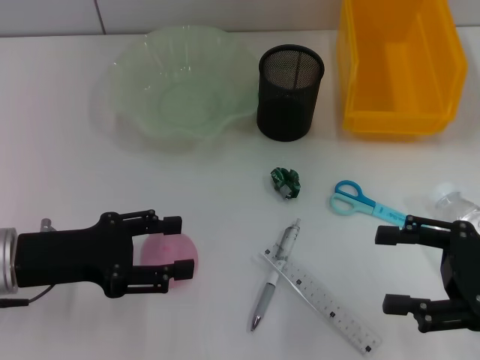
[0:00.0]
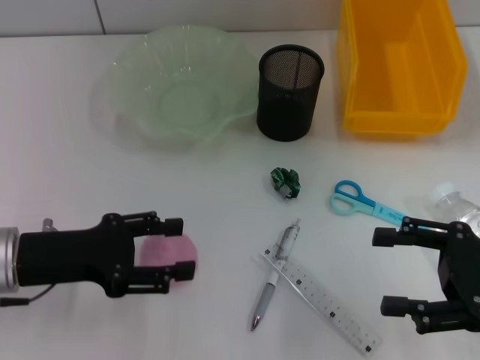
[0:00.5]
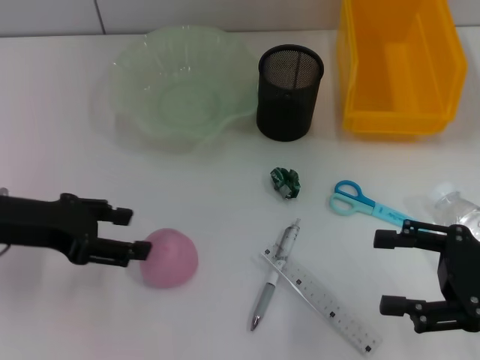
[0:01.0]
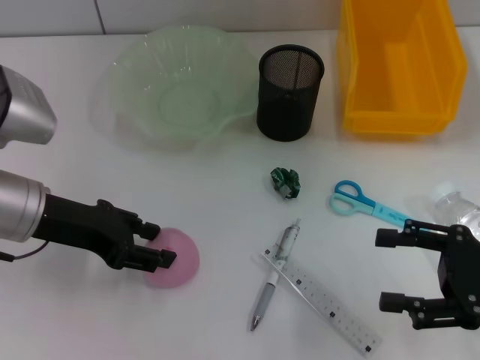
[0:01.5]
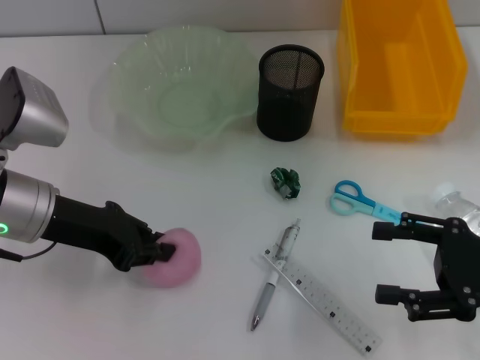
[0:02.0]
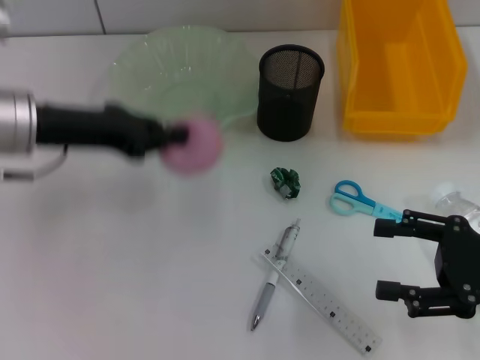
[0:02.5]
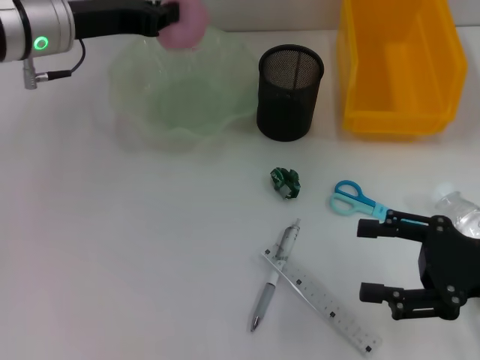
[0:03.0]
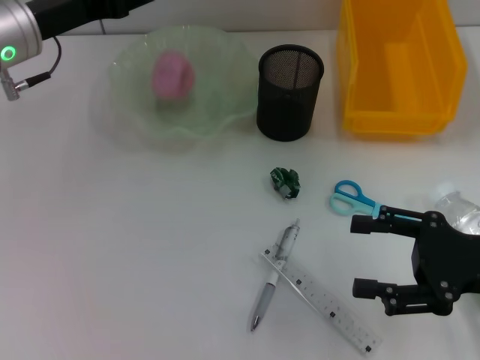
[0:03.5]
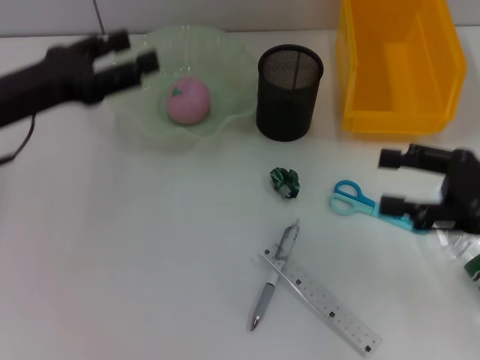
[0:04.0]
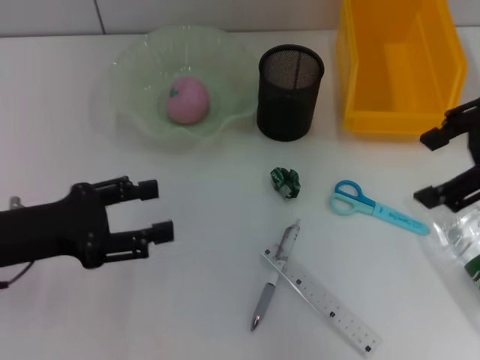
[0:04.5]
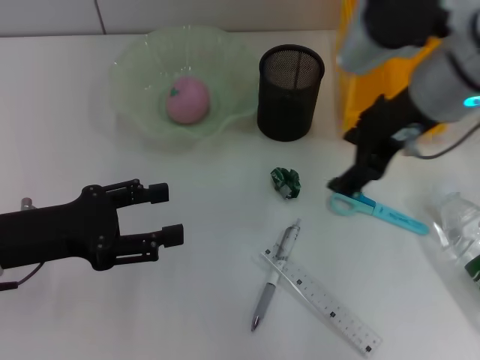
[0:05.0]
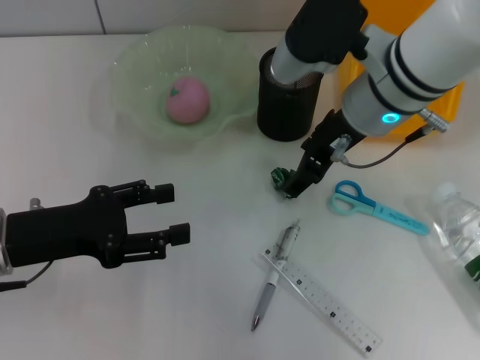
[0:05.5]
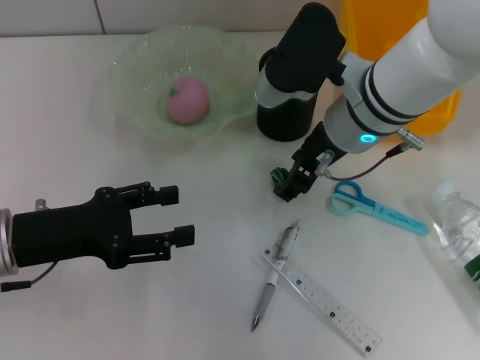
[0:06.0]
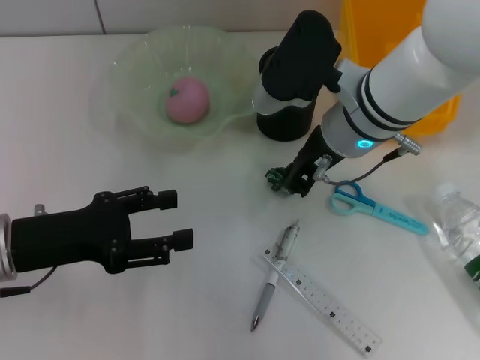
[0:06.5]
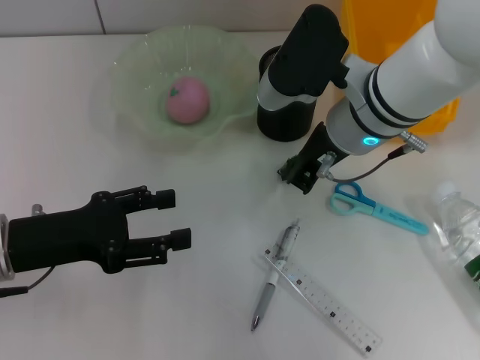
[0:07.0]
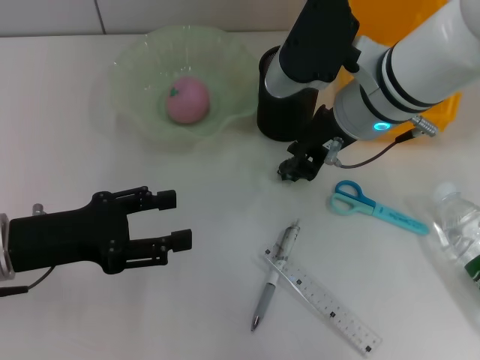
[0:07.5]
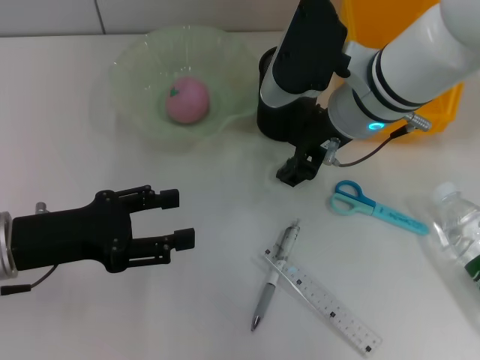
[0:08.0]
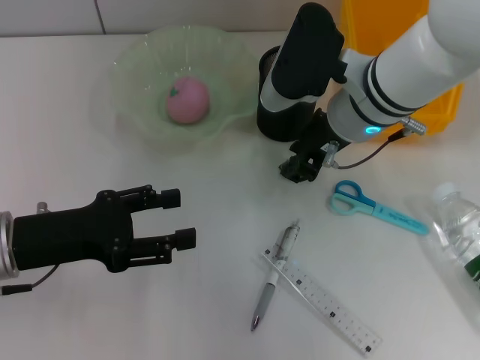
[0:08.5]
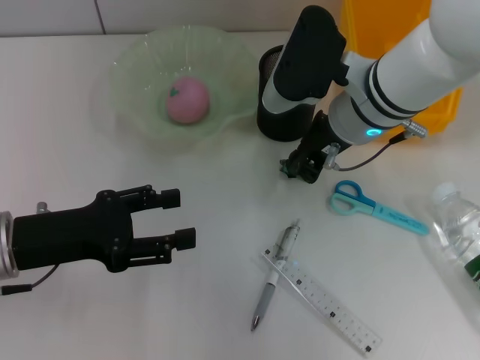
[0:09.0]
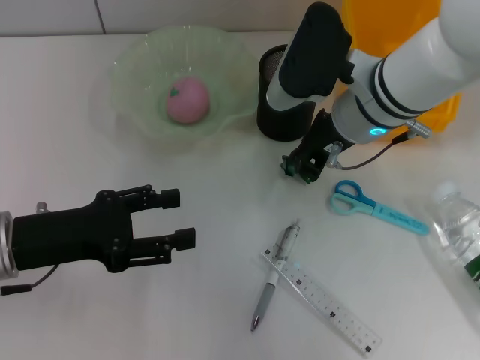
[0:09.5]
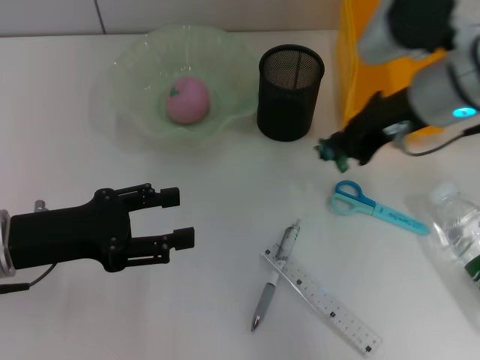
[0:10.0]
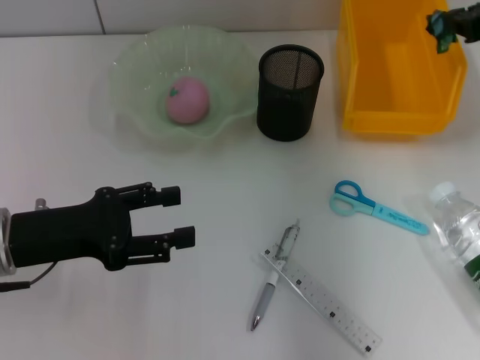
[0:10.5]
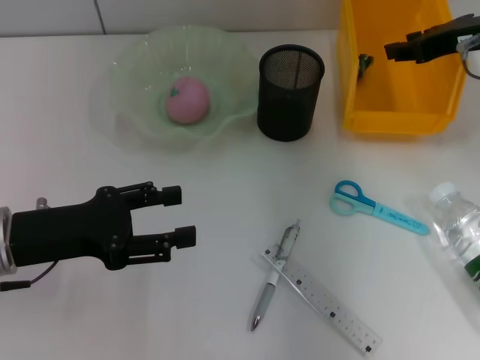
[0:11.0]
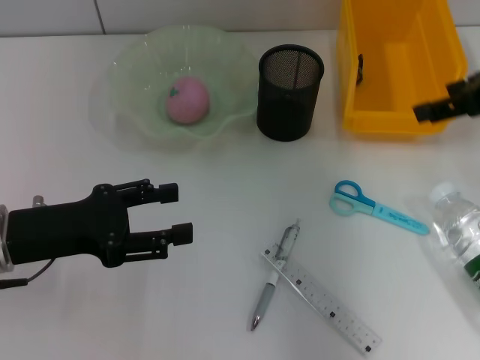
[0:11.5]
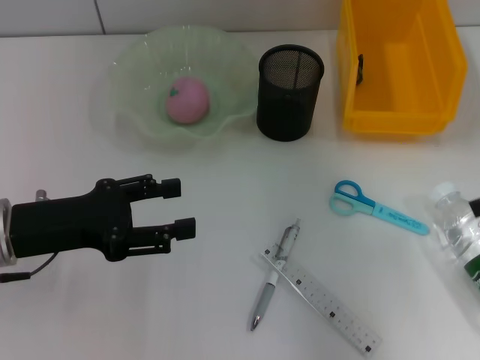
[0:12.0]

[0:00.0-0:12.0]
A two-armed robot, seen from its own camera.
Step, 0:00.0 to 0:02.0: Grab the peach with the left hand.
Step, 0:02.5 to 0:03.5: Place the peach into the fruit bowl with the left hand.
Step, 0:04.0 to 0:09.5: Grab the plastic with the right hand.
Step, 0:10.0 to 0:10.5: Place the plastic into the trash can with the right hand.
0:00.0 to 0:02.0: The left gripper travels forward by roughly 5 cm, and closes up.
0:02.0 to 0:04.0: The right gripper moves roughly 5 cm, while the left gripper moves about 10 cm forward and comes back, and opens up.
0:04.0 to 0:06.0: The left gripper travels backward and downward by roughly 10 cm. The right gripper is displaced to the left and forward by about 25 cm.
0:06.0 to 0:08.0: The right gripper closes, then opens again.
0:08.0 to 0:10.0: The right gripper shifts some 10 cm to the right, and closes its fingers.
0:10.0 to 0:12.0: The right gripper heads to the right and backward, covering roughly 15 cm, and opens its fingers.

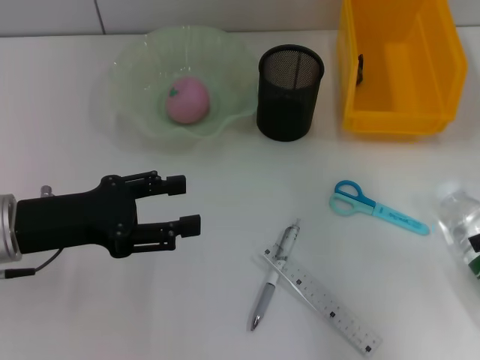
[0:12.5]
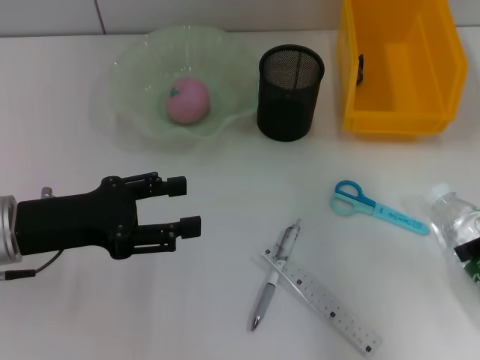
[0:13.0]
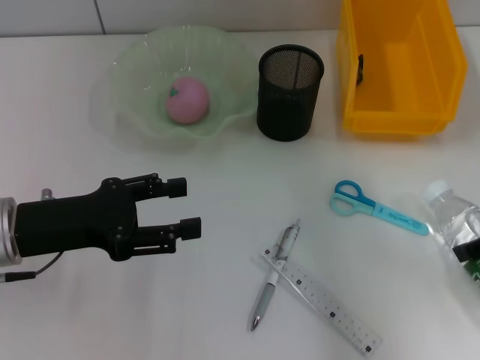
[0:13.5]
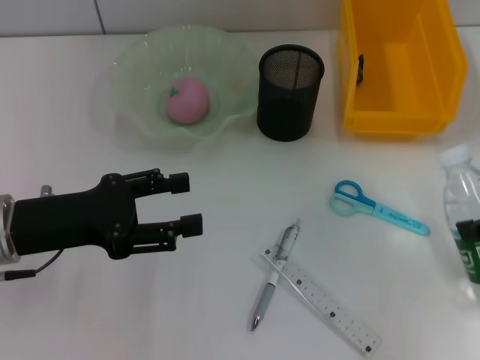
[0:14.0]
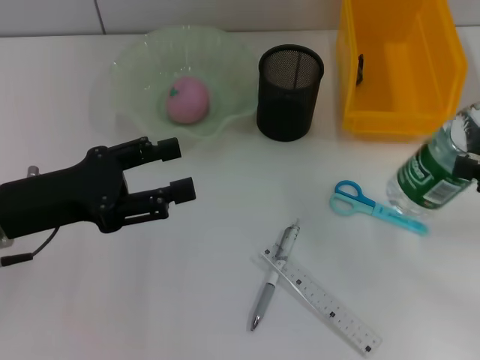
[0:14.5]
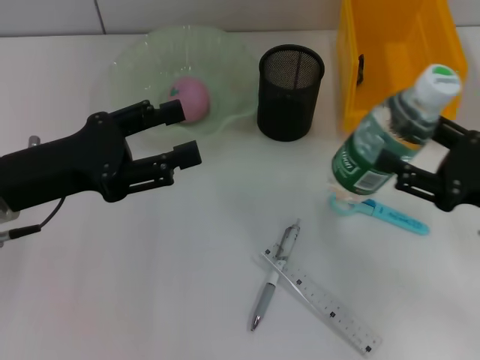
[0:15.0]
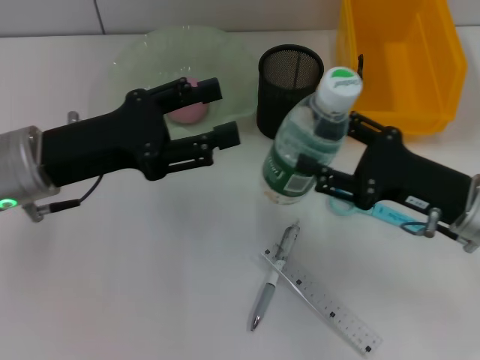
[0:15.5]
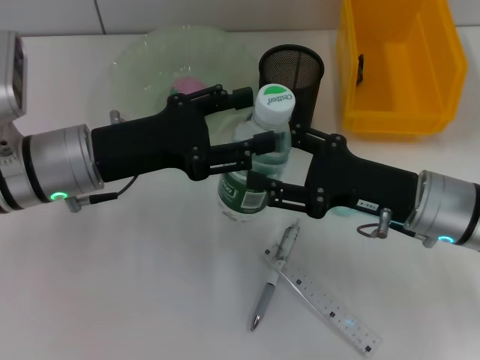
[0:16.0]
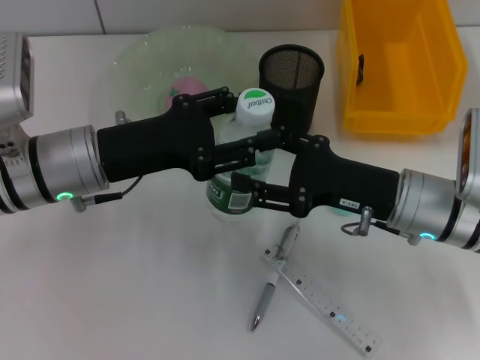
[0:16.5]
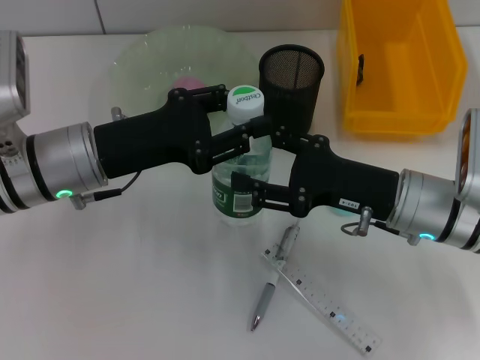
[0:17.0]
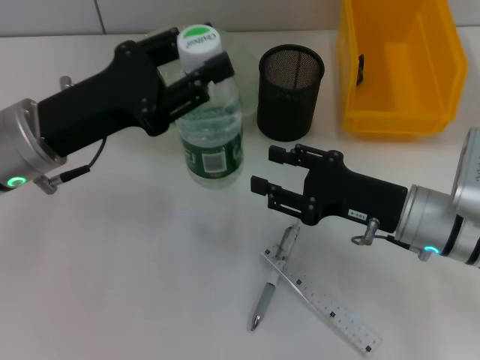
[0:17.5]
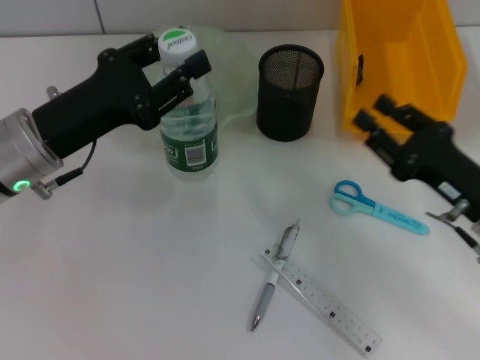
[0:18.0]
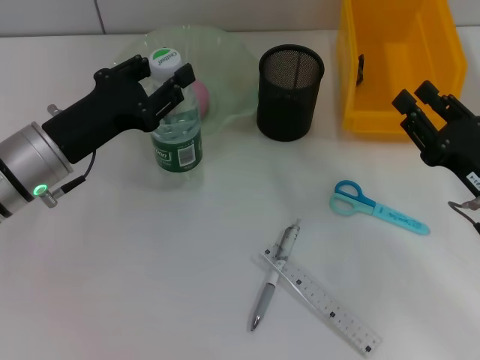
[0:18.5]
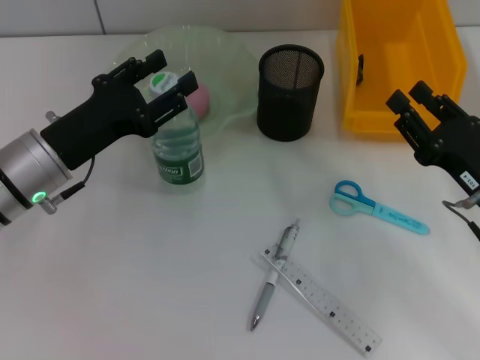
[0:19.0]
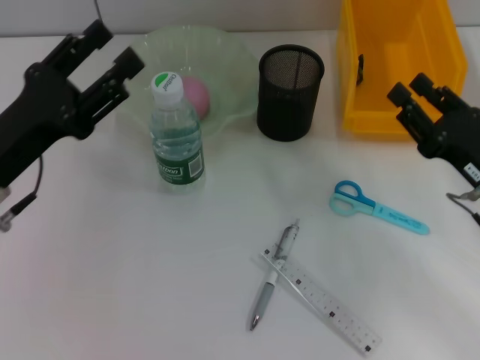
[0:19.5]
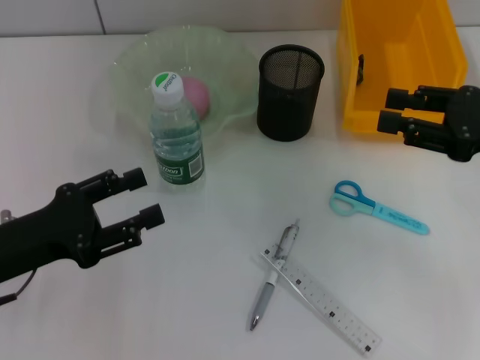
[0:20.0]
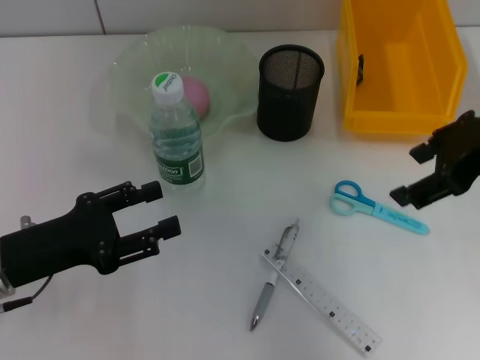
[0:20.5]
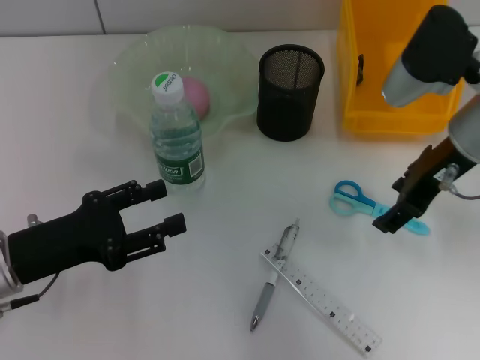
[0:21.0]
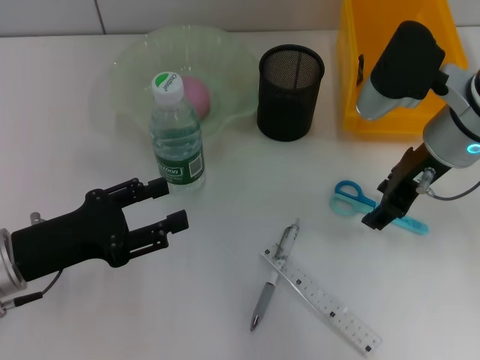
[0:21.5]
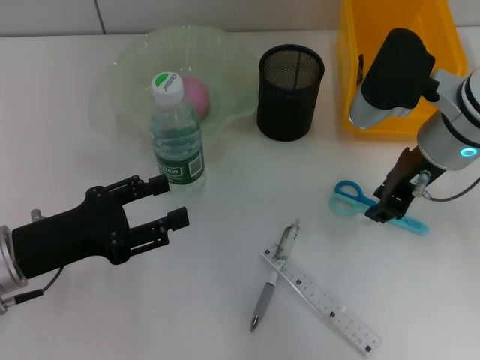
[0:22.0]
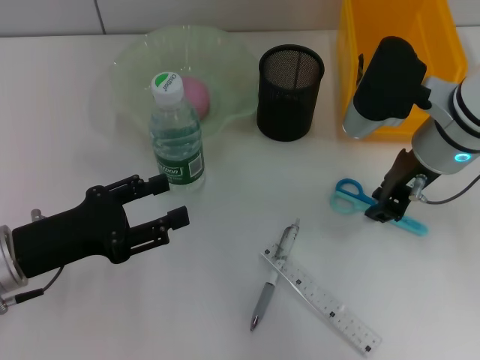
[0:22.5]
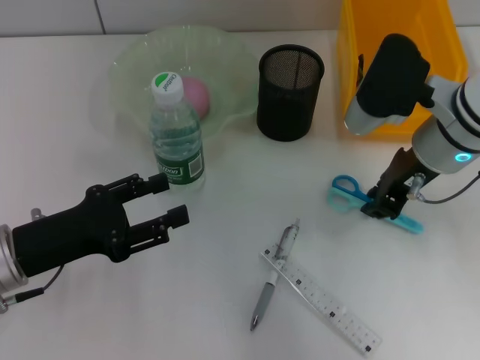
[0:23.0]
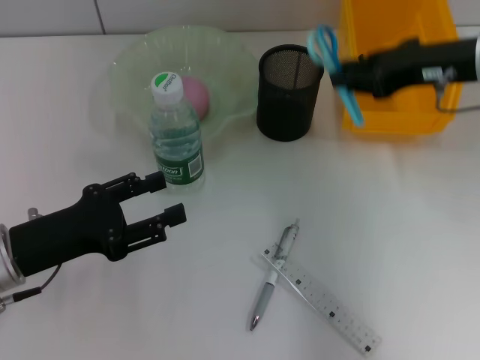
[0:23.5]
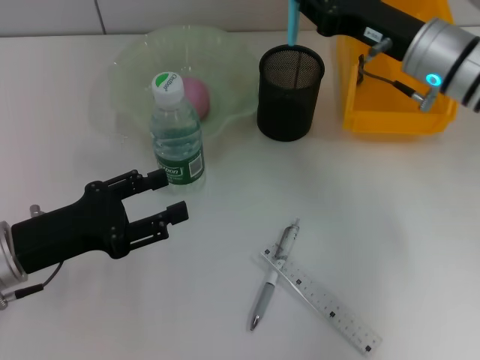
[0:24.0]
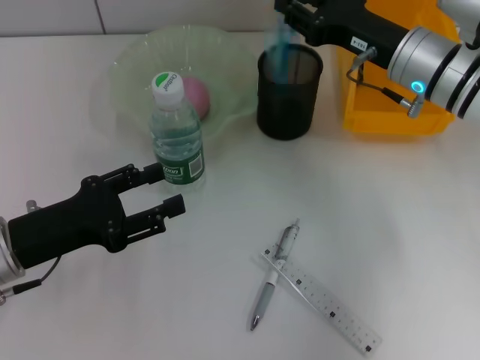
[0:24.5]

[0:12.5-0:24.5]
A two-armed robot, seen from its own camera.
Step, 0:14.0 to 0:17.0: Pass the water bottle from the right hand to the left hand.
Step, 0:17.5 to 0:18.5: Place the water bottle on the table with the left hand.
Step, 0:19.0 to 0:22.5: Grab the blue scissors with the right hand.
0:12.5 to 0:14.5: The right gripper moves backward, approximately 5 cm.
0:14.5 to 0:16.5: The right gripper is displaced to the left by approximately 20 cm. The left gripper goes some 10 cm to the right and forward.
0:16.5 to 0:18.5: The right gripper moves to the right, about 10 cm.
0:18.5 to 0:20.5: The left gripper moves backward, about 10 cm, and opens up. Meanwhile the right gripper moves upward, about 20 cm.
0:20.5 to 0:22.5: The right gripper travels downward and to the left by approximately 10 cm, and closes up.

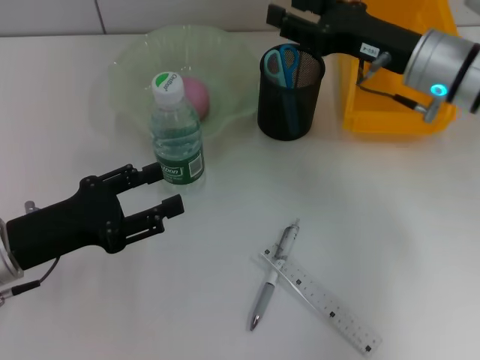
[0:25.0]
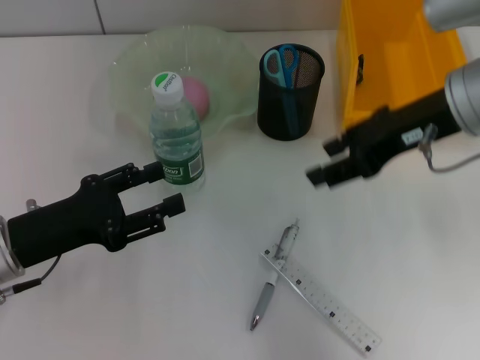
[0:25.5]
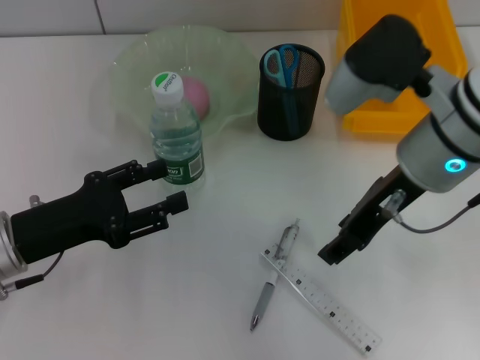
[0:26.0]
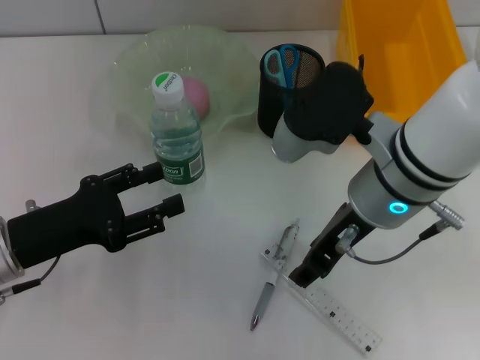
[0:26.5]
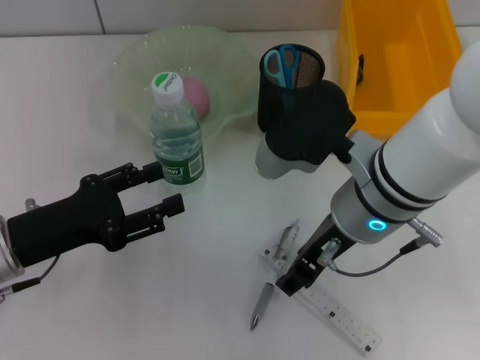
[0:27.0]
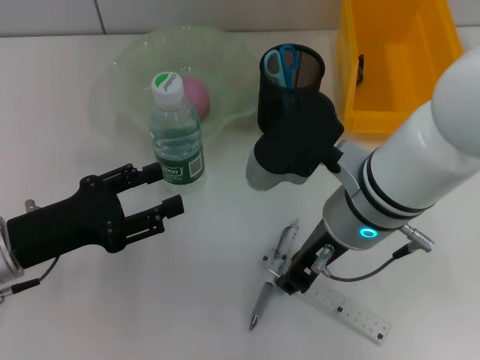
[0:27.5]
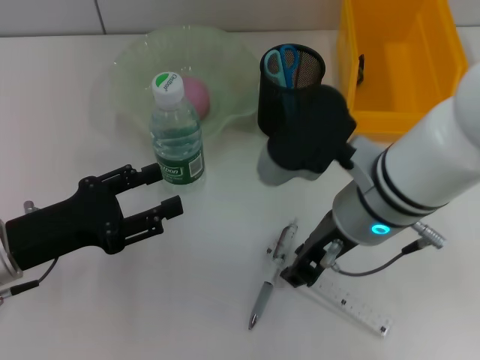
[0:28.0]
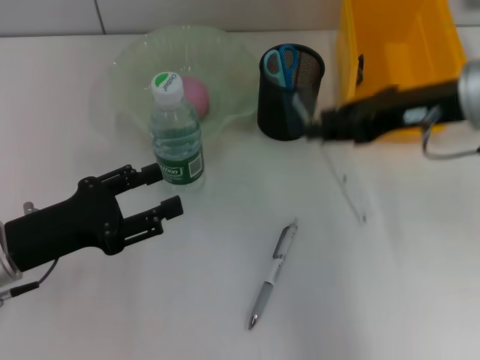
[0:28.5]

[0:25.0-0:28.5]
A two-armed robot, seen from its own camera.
Step, 0:25.0 to 0:27.5: Grab the ruler with the right hand.
0:25.0 to 0:27.0: The right gripper heads to the left and backward, covering roughly 15 cm.
0:27.0 to 0:28.5: The right gripper is displaced to the right and upward by about 15 cm.
